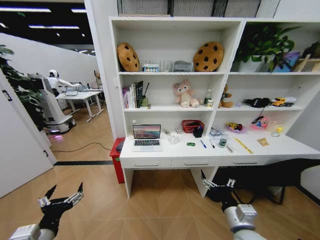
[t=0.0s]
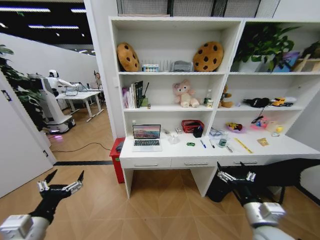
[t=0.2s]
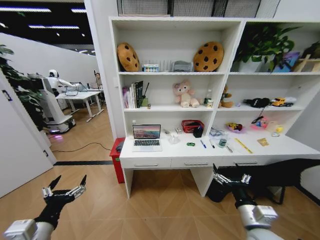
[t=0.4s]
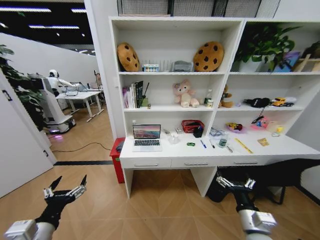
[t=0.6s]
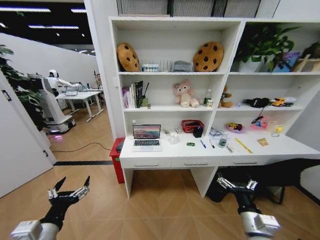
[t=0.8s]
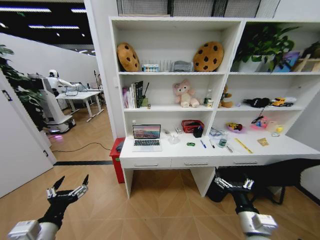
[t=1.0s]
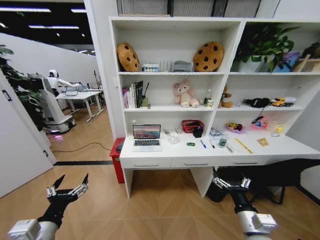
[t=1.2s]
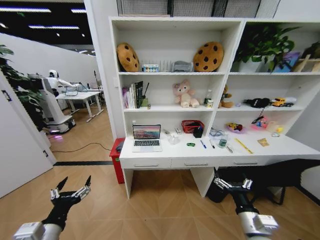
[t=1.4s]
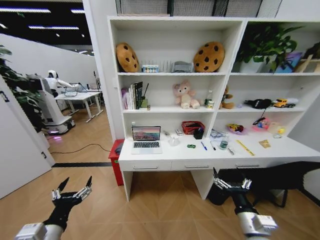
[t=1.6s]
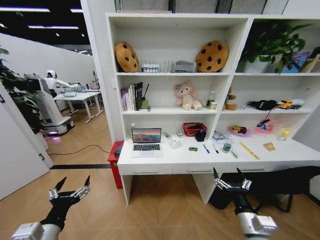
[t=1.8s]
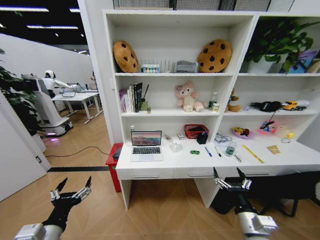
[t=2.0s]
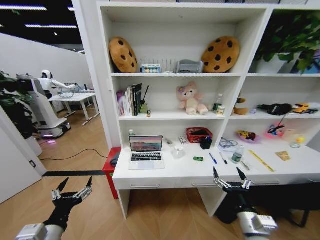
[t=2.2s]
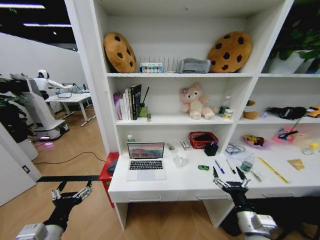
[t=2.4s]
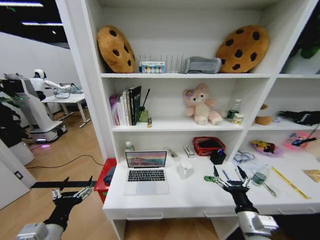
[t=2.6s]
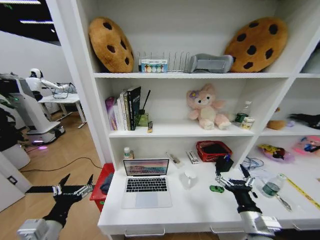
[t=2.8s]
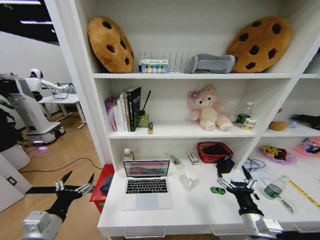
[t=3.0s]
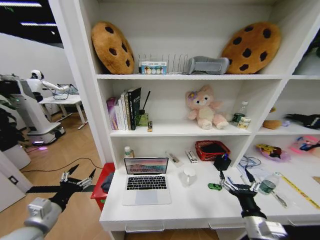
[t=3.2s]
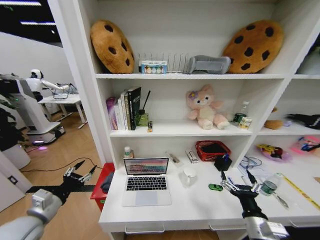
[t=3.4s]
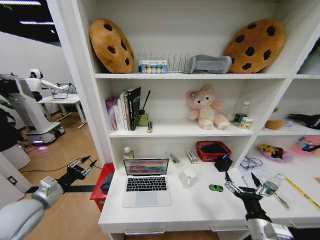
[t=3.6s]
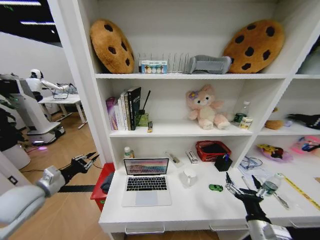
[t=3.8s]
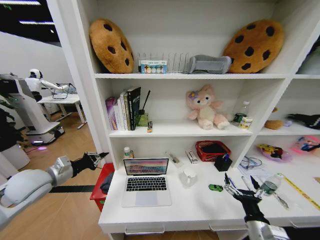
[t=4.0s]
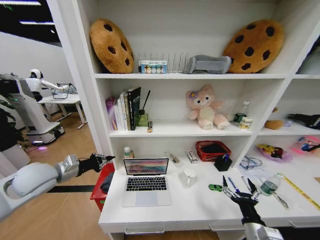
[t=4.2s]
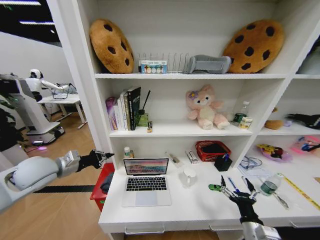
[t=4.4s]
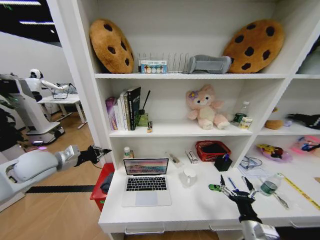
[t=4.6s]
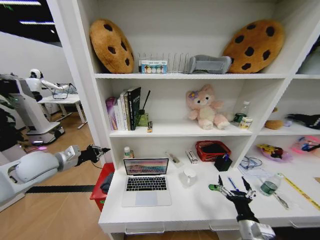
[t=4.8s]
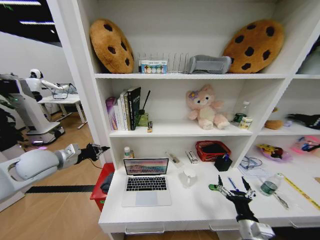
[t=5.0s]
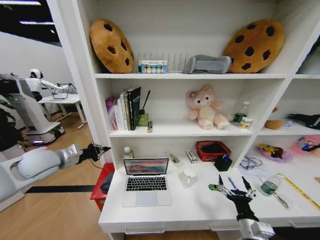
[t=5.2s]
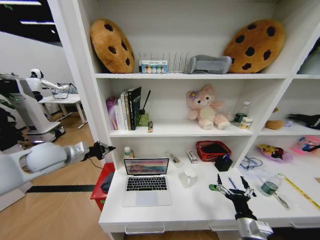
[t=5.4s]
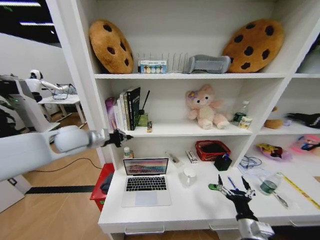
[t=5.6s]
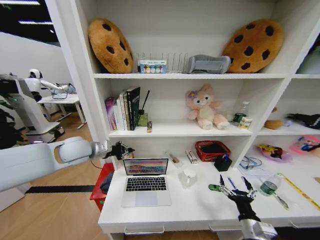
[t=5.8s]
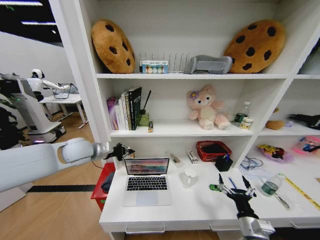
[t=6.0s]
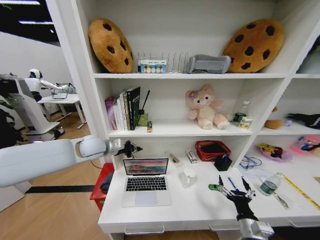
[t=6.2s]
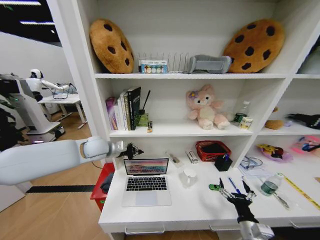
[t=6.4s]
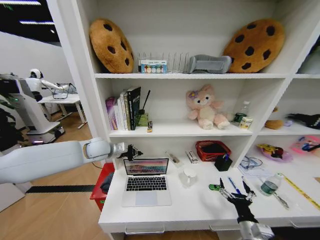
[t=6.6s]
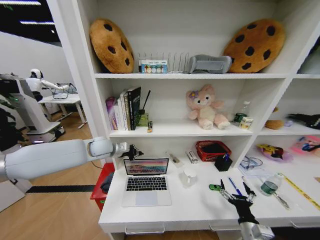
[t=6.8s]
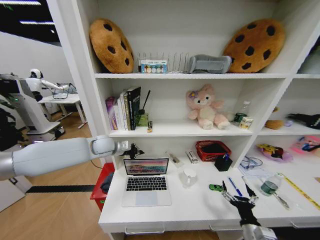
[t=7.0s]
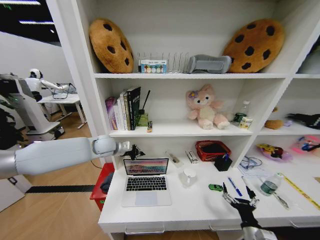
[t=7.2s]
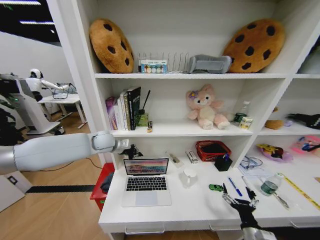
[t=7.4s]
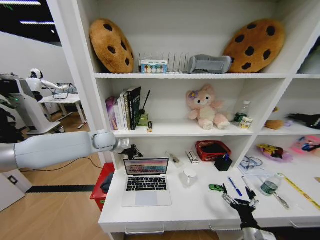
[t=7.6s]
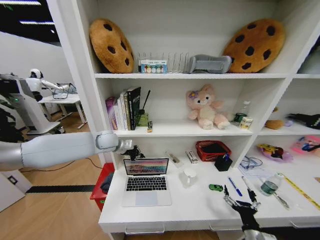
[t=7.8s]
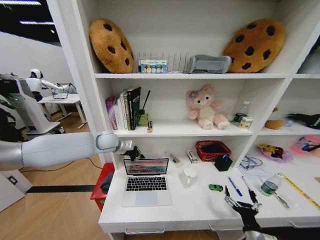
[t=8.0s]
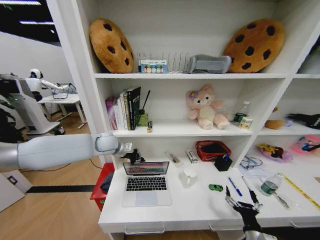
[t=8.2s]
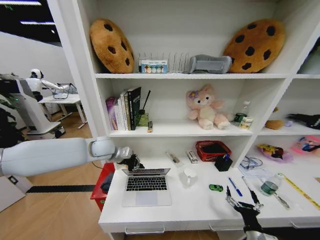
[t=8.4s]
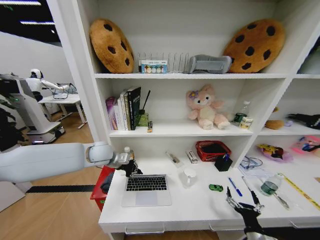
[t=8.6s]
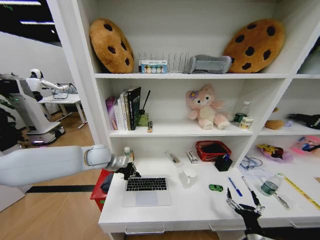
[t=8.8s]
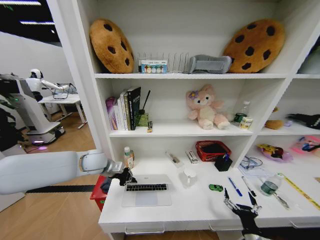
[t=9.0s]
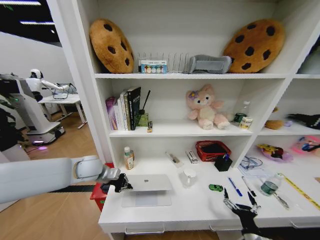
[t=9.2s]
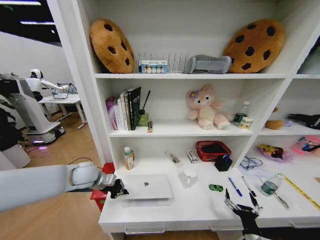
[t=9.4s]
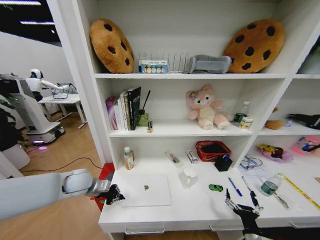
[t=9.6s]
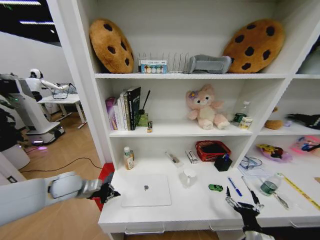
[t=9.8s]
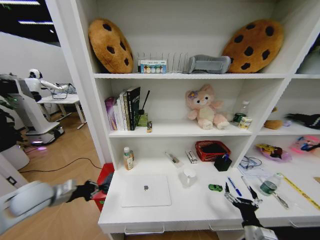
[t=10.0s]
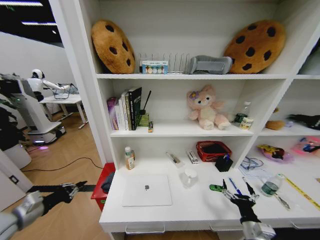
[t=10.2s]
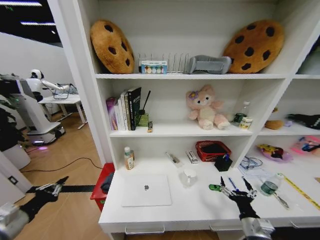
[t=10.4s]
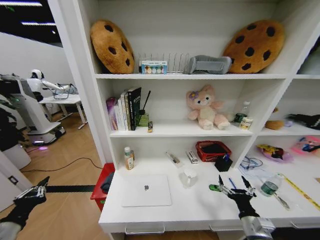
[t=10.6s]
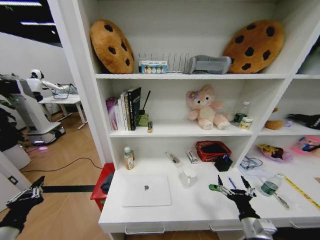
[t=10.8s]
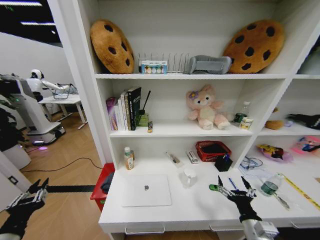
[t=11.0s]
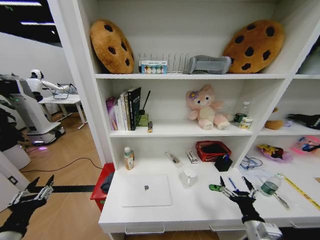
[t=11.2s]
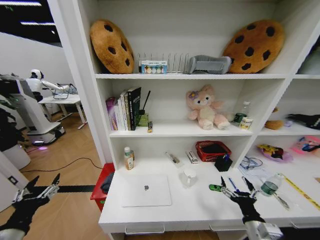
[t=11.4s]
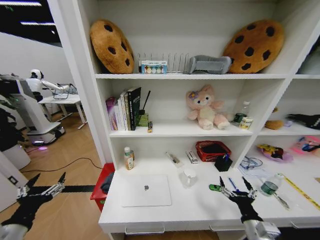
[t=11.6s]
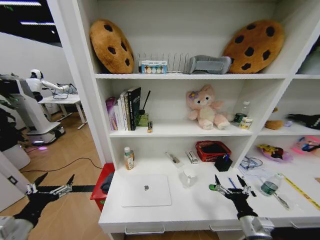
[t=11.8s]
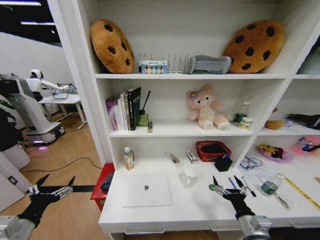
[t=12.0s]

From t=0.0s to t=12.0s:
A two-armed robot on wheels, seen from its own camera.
Task of the whole recording: Organize the objects on the table.
From t=3.0s to t=4.4s: The left gripper heads forward and upward, covering some 20 cm, and closes.
From t=4.4s to t=6.0s: The left gripper heads to the right and forward, covering approximately 10 cm.
From t=6.0s to t=7.6s: The right gripper changes place by approximately 5 cm. Meanwhile the left gripper shifts about 10 cm forward and to the right.
From t=7.6s to t=9.0s: The left gripper heads backward, covering some 10 cm.
From t=9.0s to t=10.4s: The left gripper is displaced backward and to the left by roughly 35 cm. The right gripper is displaced upward by about 5 cm.
From t=10.4s to t=12.0s: The left gripper moves to the right, about 5 cm, and opens.

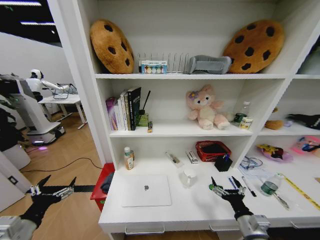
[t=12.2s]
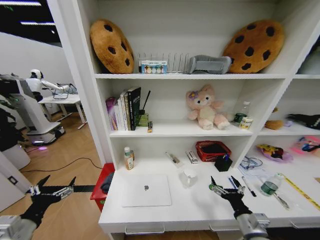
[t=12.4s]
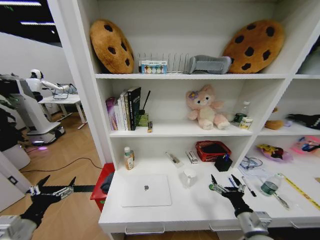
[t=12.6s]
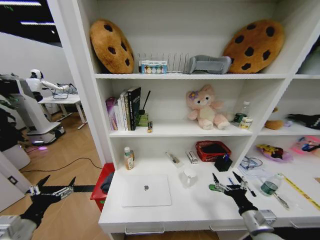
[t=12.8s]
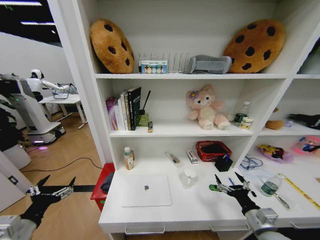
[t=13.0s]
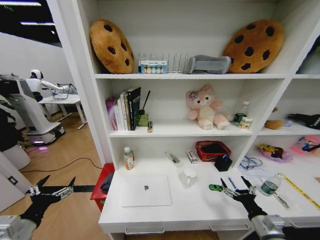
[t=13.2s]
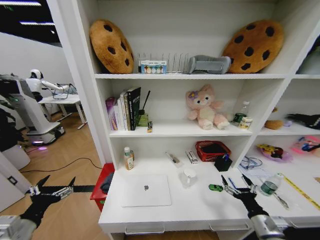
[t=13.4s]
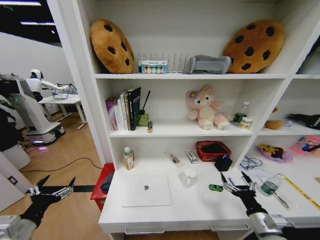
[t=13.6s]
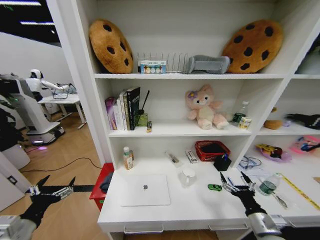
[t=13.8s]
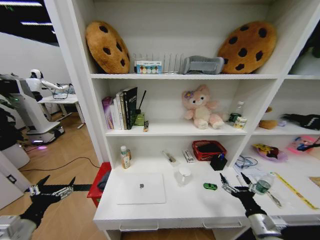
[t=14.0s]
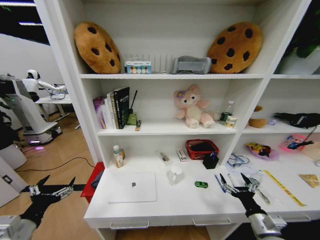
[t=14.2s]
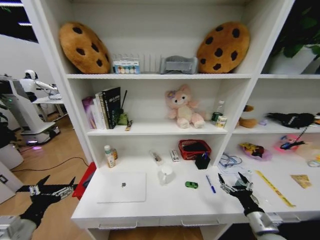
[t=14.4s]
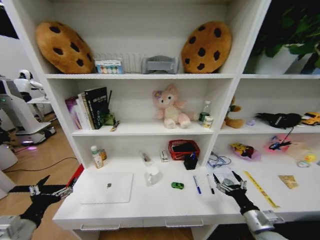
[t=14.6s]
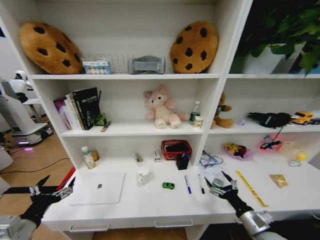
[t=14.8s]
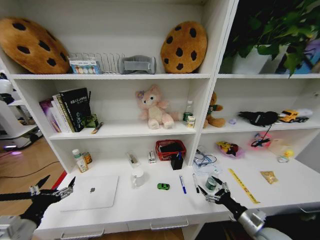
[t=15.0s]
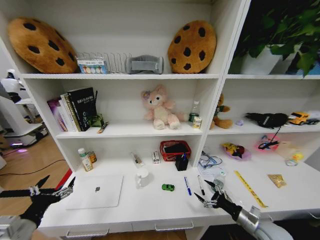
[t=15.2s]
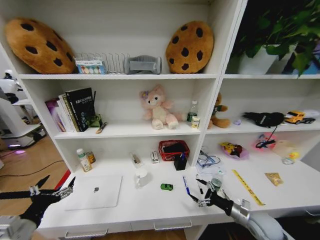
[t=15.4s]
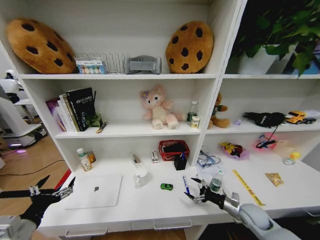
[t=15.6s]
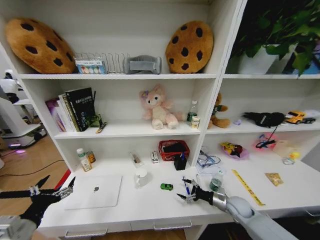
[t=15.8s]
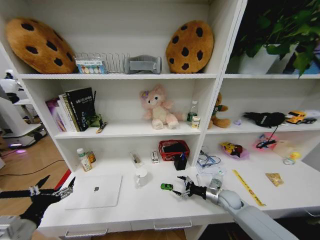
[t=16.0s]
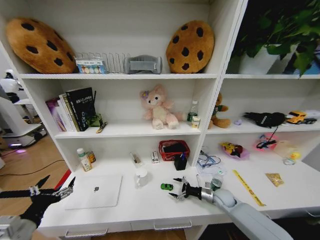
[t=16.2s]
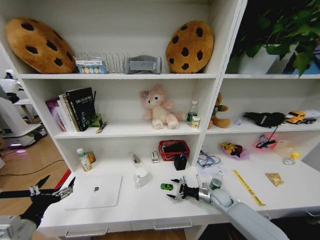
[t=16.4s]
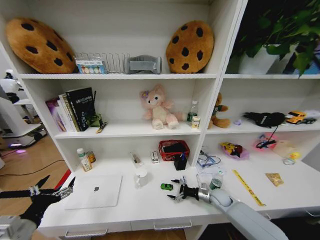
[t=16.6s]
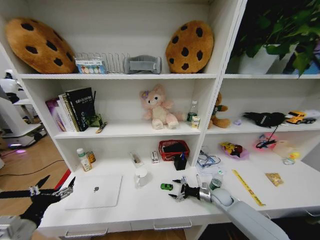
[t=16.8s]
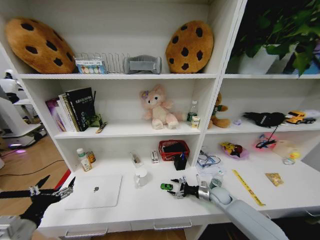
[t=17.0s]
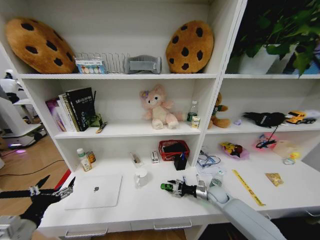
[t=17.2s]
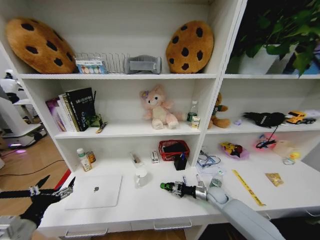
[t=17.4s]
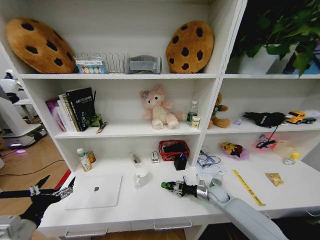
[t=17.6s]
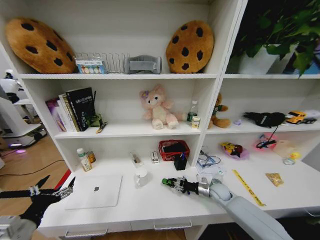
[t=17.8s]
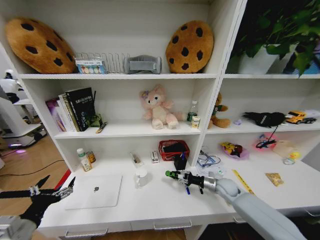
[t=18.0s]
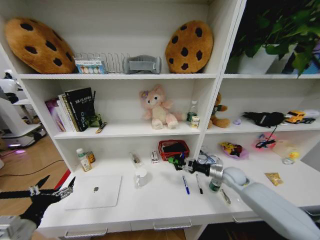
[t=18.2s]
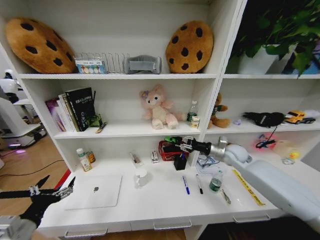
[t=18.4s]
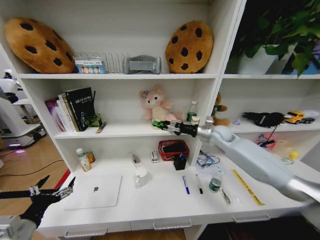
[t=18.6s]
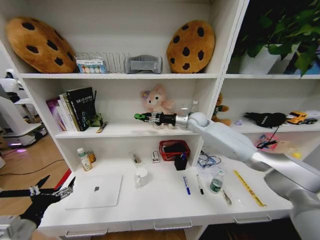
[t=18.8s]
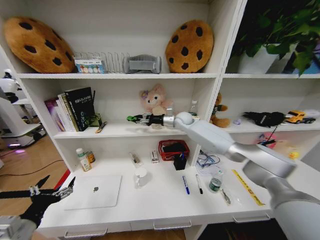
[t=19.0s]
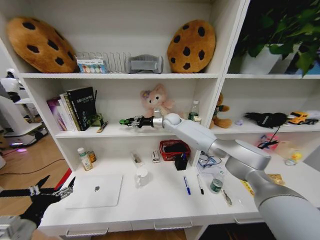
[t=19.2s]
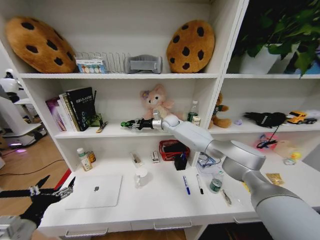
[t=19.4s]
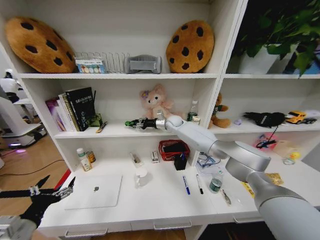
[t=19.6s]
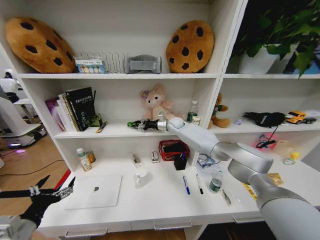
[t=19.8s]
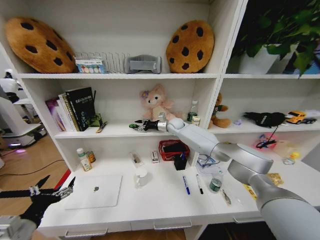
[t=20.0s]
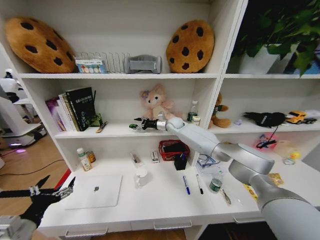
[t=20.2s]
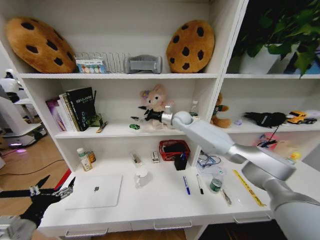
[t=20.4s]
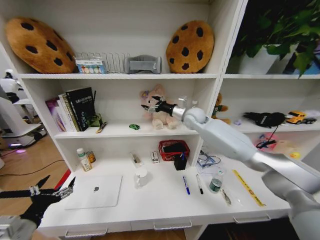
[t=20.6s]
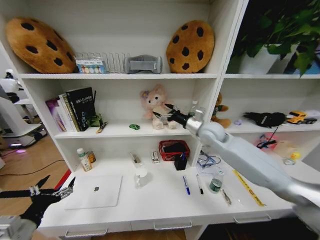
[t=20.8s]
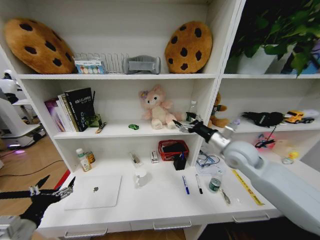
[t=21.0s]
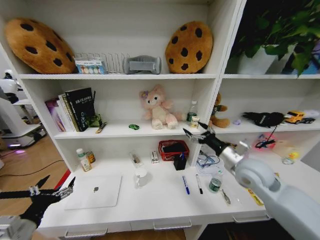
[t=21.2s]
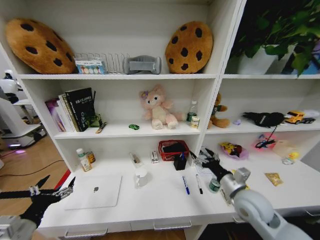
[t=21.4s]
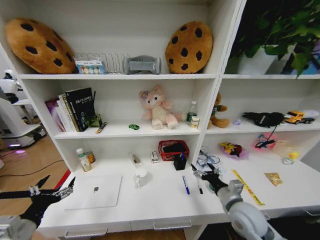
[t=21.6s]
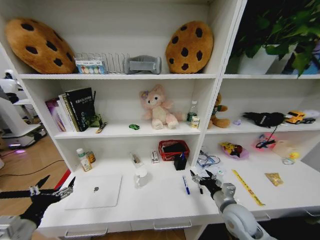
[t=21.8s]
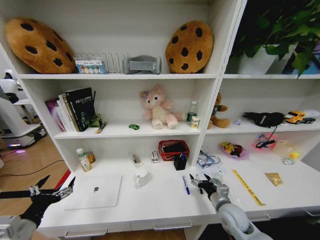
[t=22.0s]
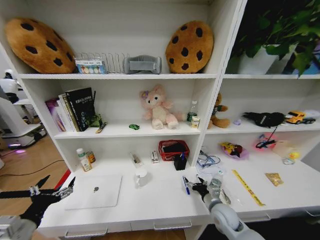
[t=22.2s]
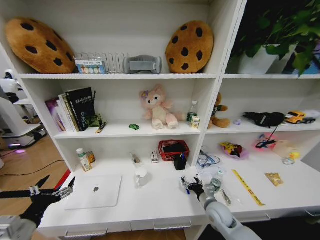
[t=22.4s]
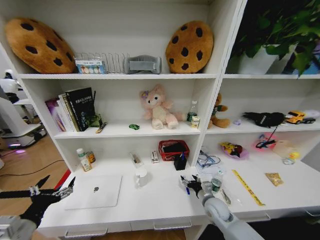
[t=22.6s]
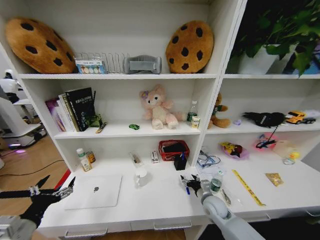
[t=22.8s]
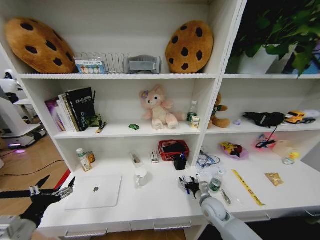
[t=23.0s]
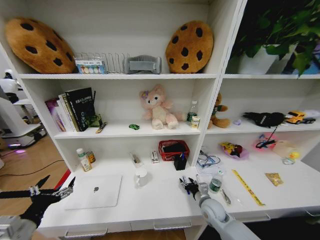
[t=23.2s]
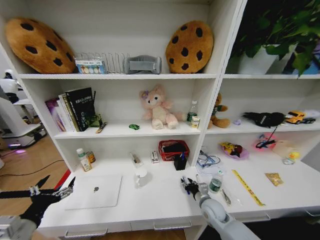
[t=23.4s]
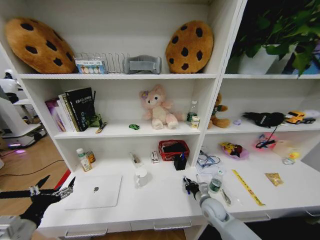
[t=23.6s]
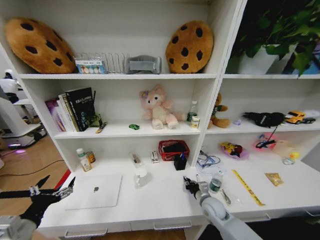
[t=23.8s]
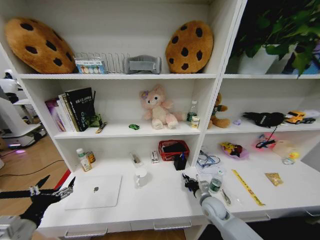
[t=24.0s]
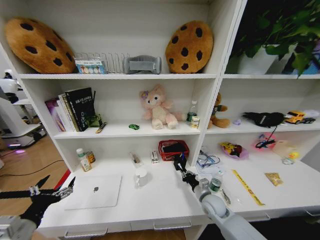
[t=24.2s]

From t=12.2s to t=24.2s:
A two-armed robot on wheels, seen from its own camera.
Task of the whole recording: Organize the objects on the table.
From t=12.2s to t=13.8s: The right gripper moves to the right, roughly 5 cm.
From t=13.8s to t=15.2s: The right gripper shifts by roughly 5 cm.
From t=15.2s to t=16.6s: The right gripper goes some 20 cm forward, to the left and downward.
From t=16.6s to t=18.2s: The right gripper heads upward, covering some 15 cm, and closes up.
From t=18.2s to t=19.8s: The right gripper heads to the left, forward and upward, covering about 40 cm.
From t=19.8s to t=21.2s: The right gripper is displaced backward and to the right by approximately 35 cm, and opens.
From t=21.2s to t=22.6s: The right gripper moves downward, roughly 25 cm.
From t=22.6s to t=24.2s: The right gripper closes.
